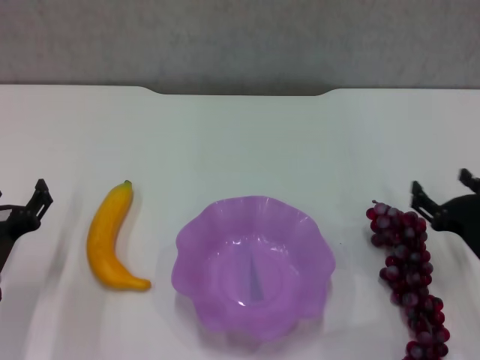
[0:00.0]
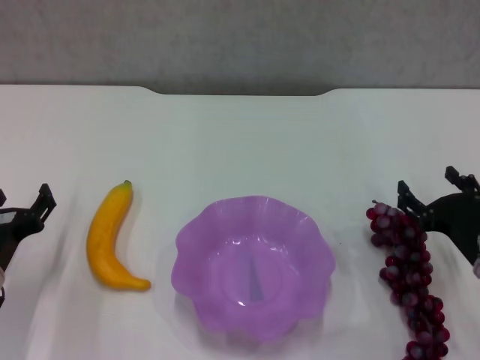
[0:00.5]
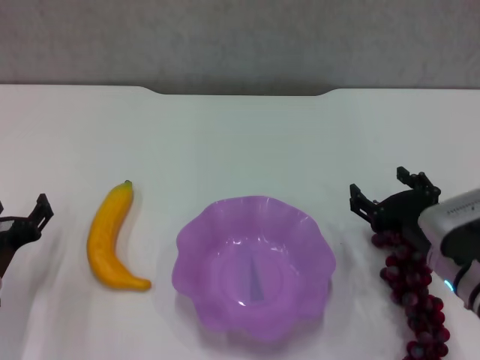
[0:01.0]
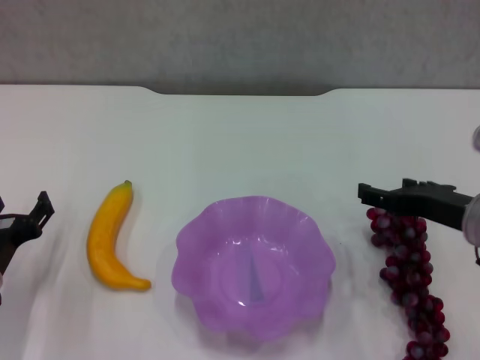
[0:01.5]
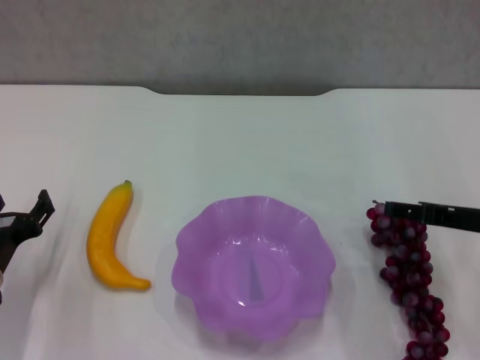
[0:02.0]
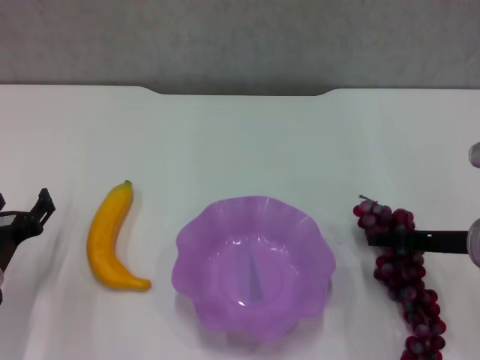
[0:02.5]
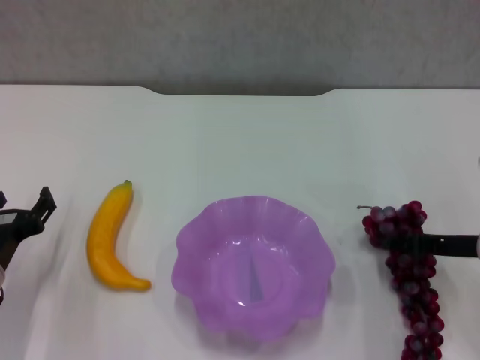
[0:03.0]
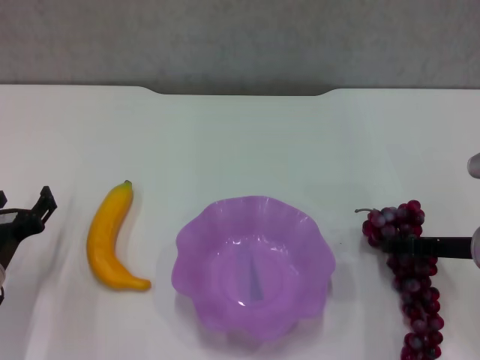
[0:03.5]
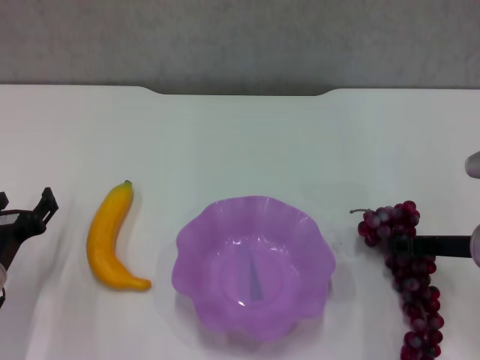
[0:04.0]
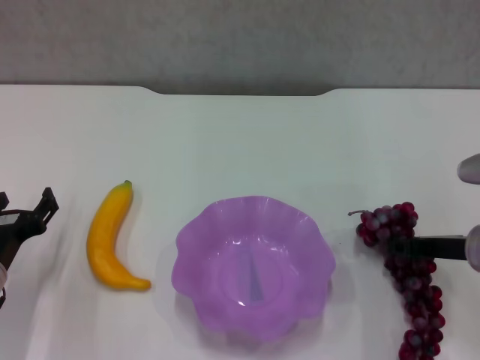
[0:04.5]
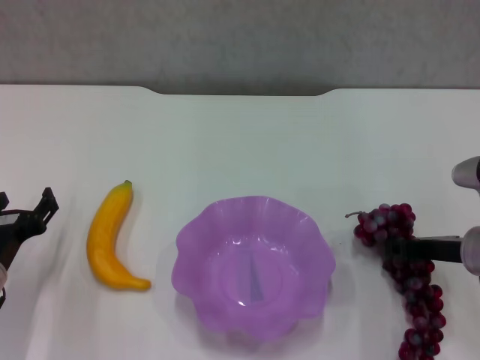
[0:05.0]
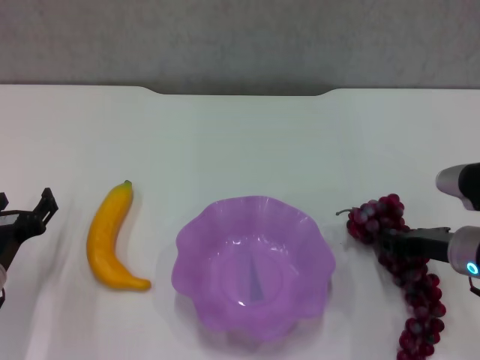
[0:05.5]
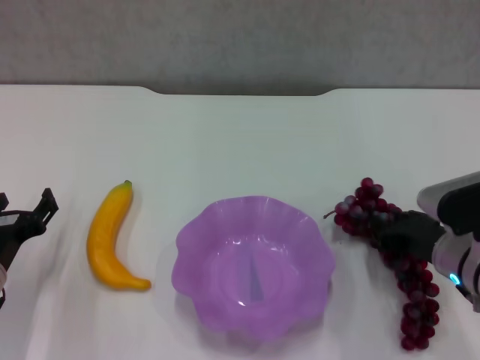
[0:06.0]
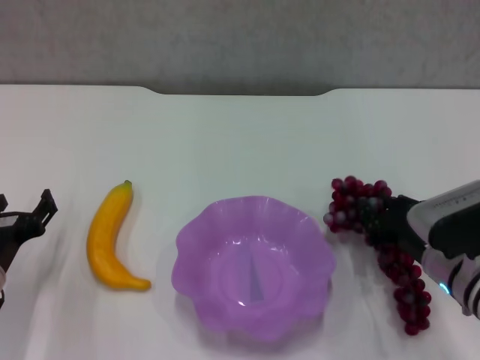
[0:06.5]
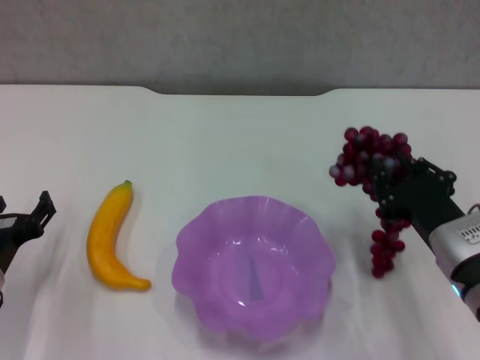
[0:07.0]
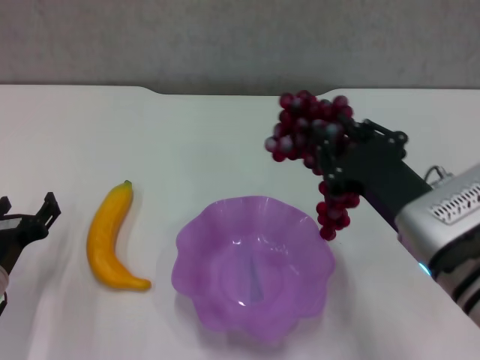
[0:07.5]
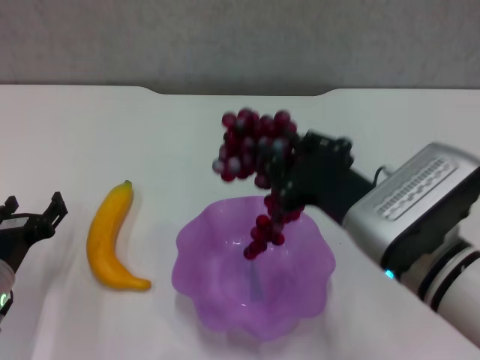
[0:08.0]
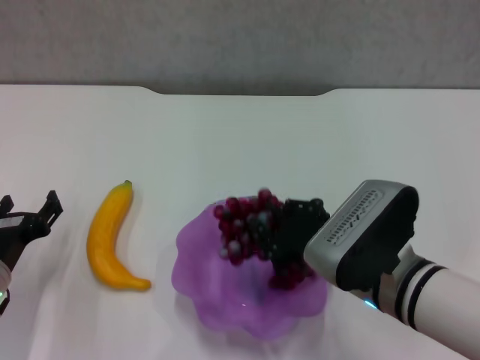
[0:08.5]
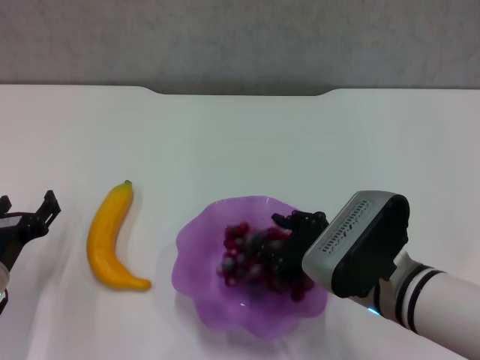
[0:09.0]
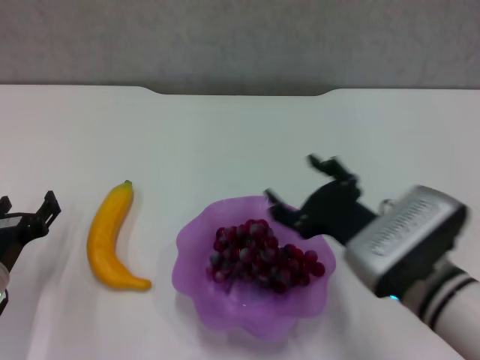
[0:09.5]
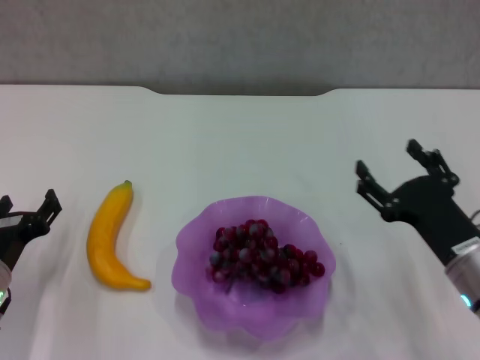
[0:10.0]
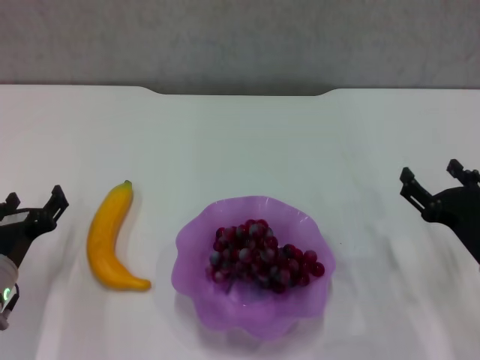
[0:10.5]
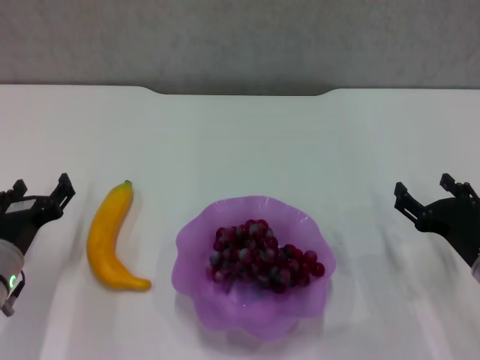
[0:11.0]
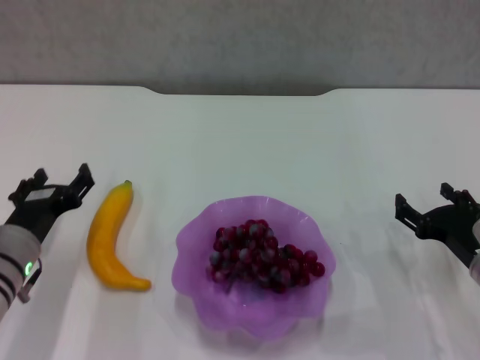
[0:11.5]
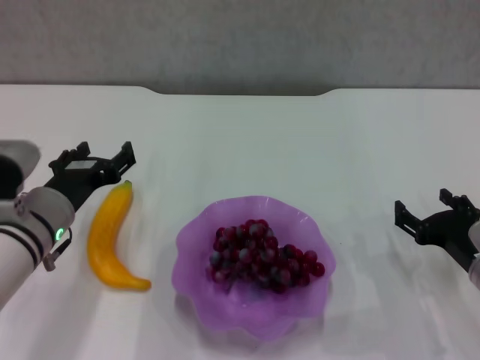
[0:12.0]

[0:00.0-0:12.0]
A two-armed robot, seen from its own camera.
Step, 0:00.0 to 0:03.0: Grasp the grape with right gripper.
Step, 0:03.5 to 0:09.5: Place the grape in the purple plate with right gripper.
0:00.0 to 0:02.0: The right gripper goes roughly 10 cm upward.
0:02.0 to 0:04.0: The right gripper travels downward by roughly 5 cm, and closes up.
0:04.0 to 0:06.0: The right gripper shifts by about 5 cm, and closes up.
0:06.0 to 0:08.0: The right gripper is displaced to the left, upward and backward by some 15 cm.
0:08.0 to 0:10.0: The right gripper moves to the right and downward, some 15 cm, and opens up.
0:10.0 to 0:12.0: The left gripper heads to the right, upward and forward, covering approximately 10 cm. Meanwhile the right gripper changes place by about 5 cm.

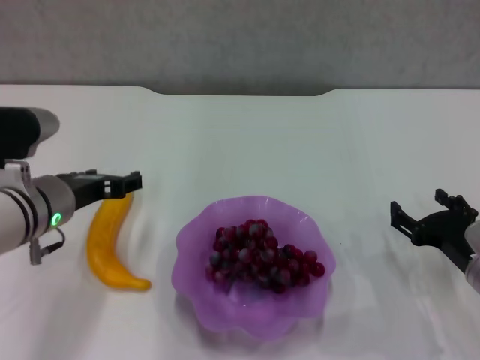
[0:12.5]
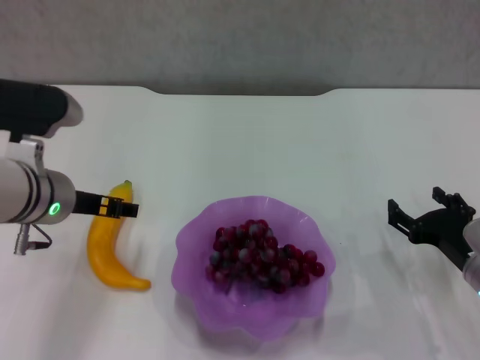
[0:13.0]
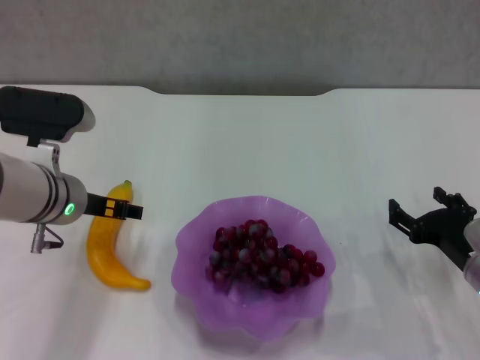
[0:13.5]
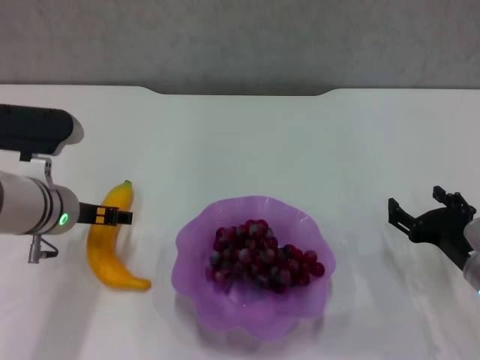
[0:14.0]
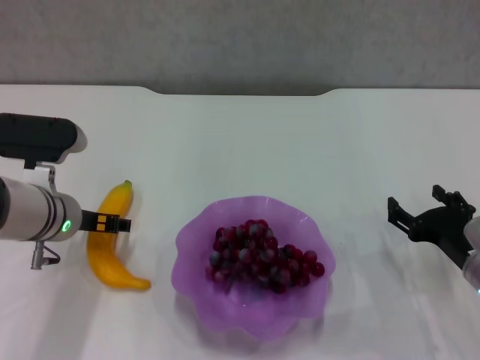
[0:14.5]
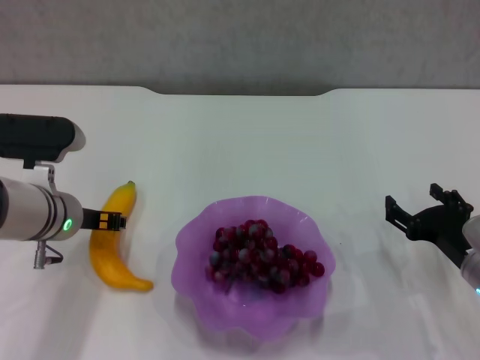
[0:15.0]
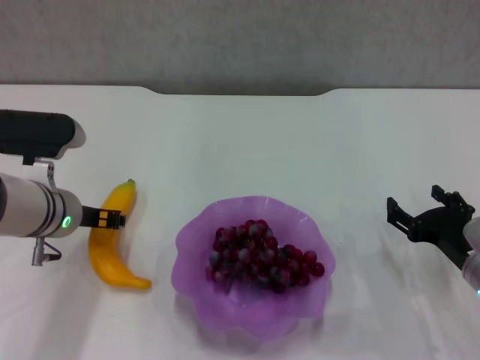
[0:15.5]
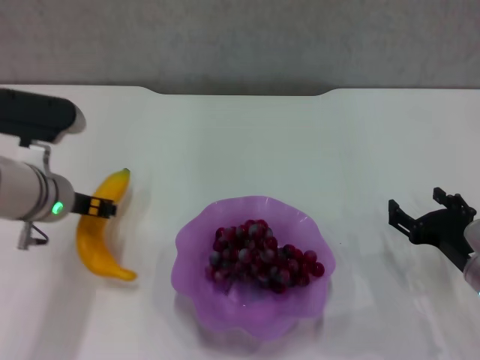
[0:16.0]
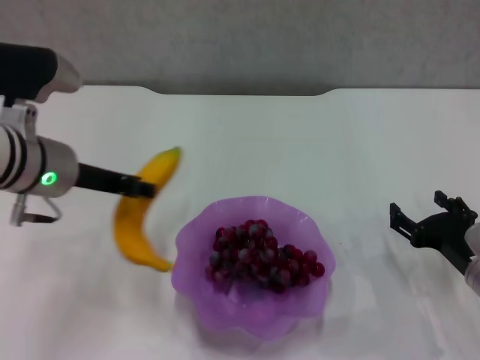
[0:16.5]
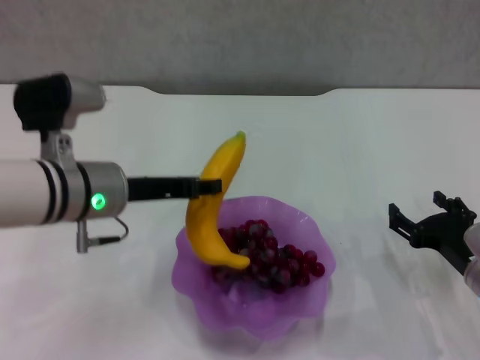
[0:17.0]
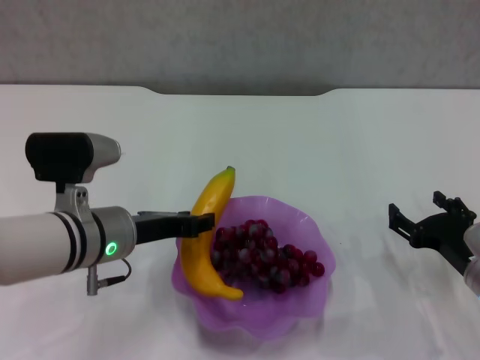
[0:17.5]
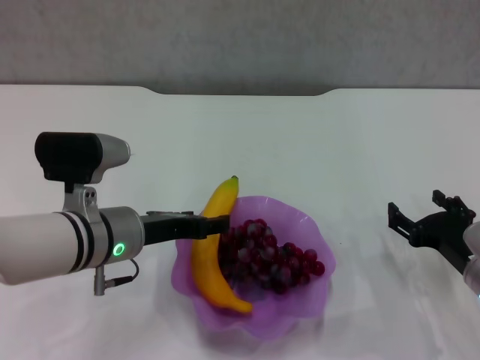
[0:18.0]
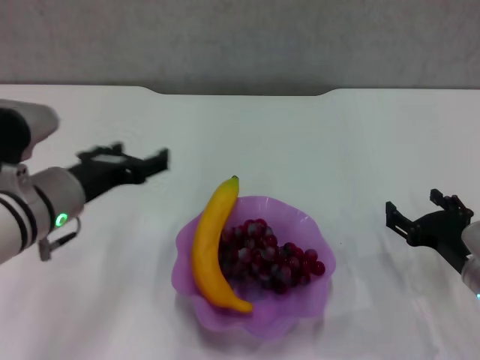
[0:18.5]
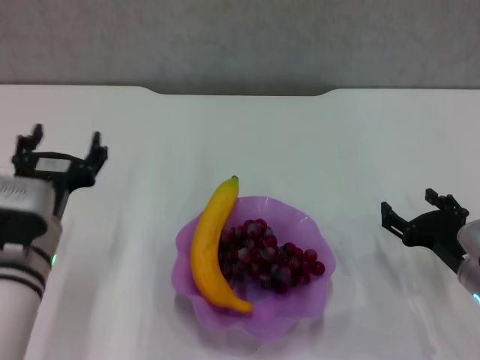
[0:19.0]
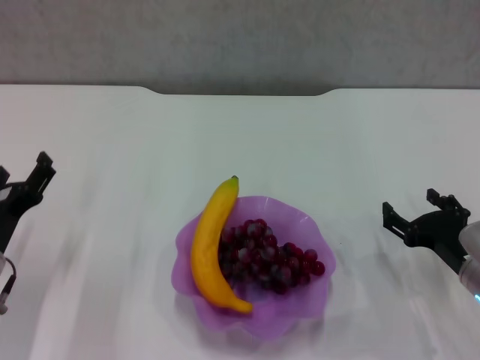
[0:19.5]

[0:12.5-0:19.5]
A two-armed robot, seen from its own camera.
Step, 0:12.5 to 0:14.5: Grasp the banana with left gripper.
Step, 0:15.0 to 0:18.0: Place the banana in the purple plate with left gripper.
0:14.5 to 0:16.0: The left gripper closes up.
0:16.0 to 0:17.5: The left gripper moves to the right and backward, some 5 cm, and moves some 5 cm upward and comes back.
0:17.5 to 0:19.5: The left gripper goes roughly 15 cm to the left and downward, and opens its fingers.

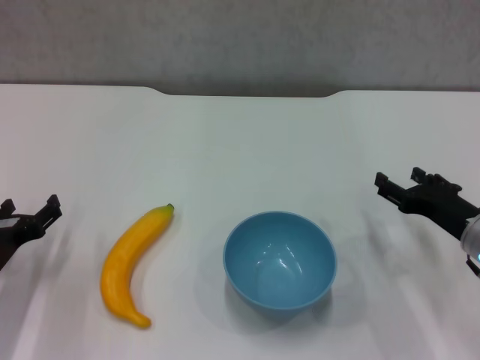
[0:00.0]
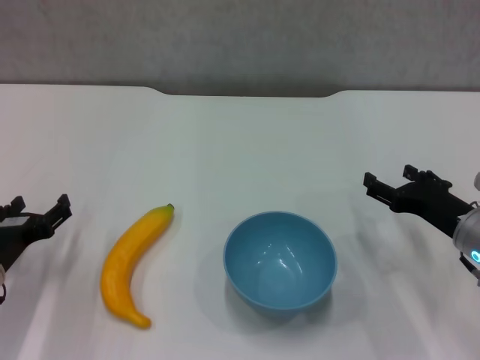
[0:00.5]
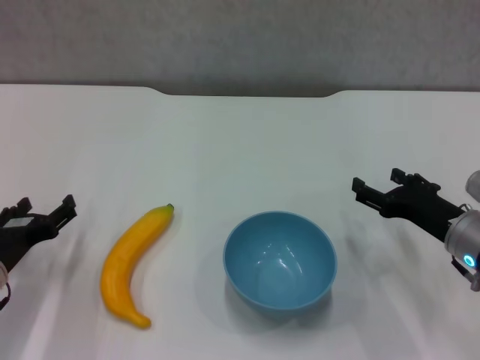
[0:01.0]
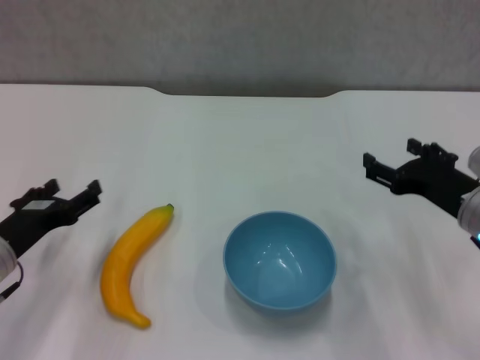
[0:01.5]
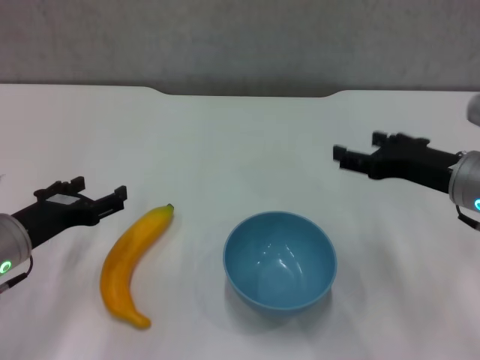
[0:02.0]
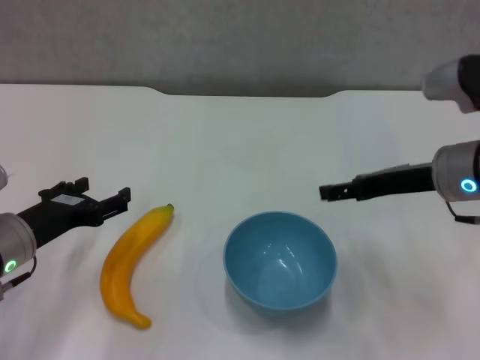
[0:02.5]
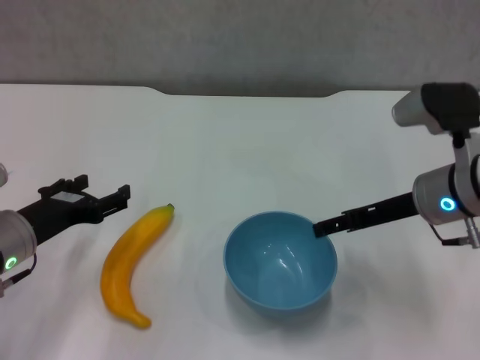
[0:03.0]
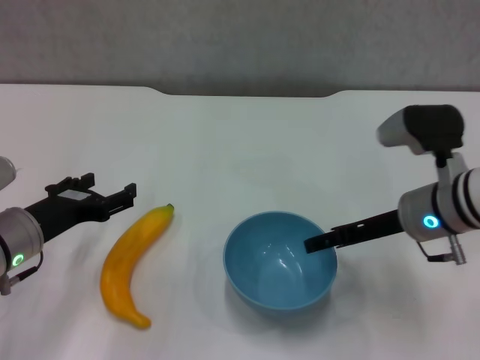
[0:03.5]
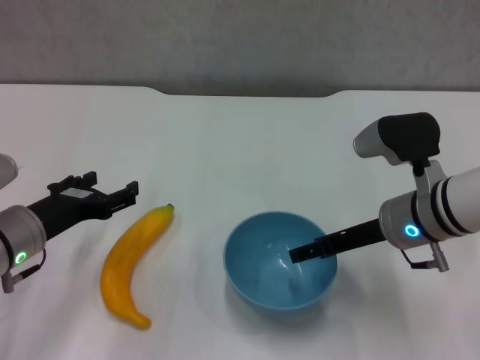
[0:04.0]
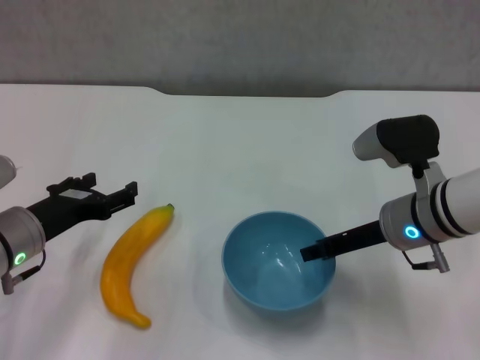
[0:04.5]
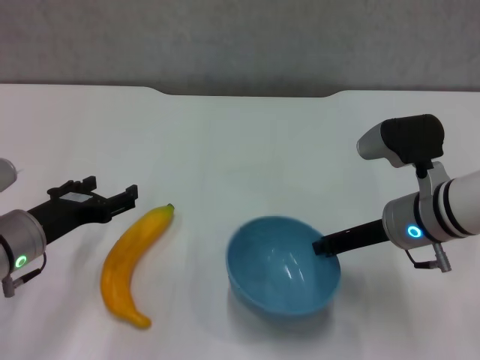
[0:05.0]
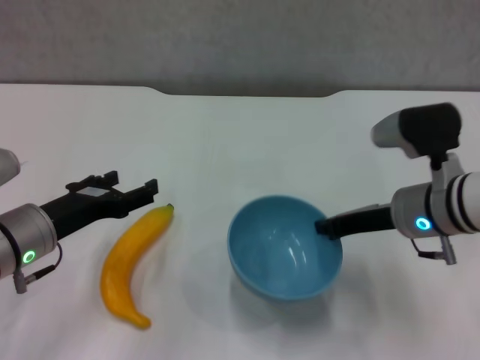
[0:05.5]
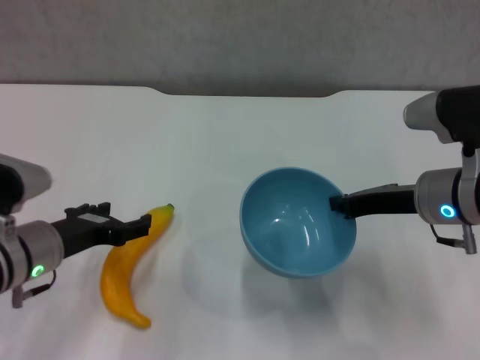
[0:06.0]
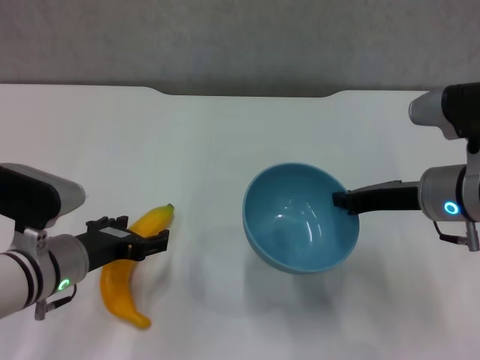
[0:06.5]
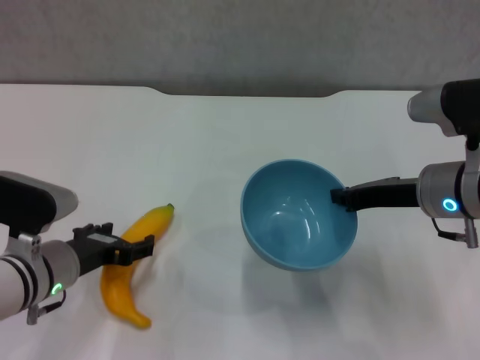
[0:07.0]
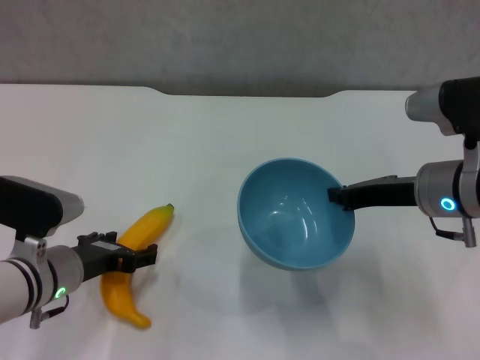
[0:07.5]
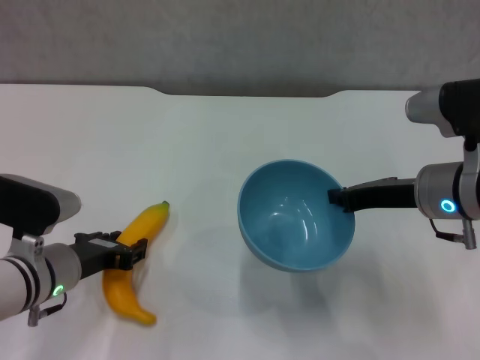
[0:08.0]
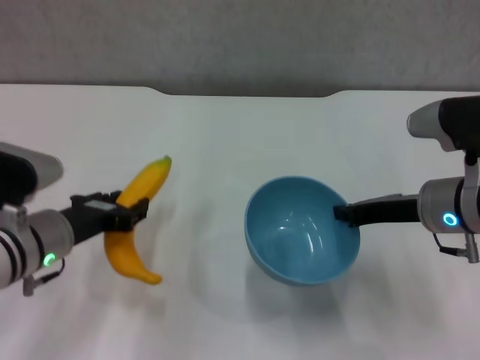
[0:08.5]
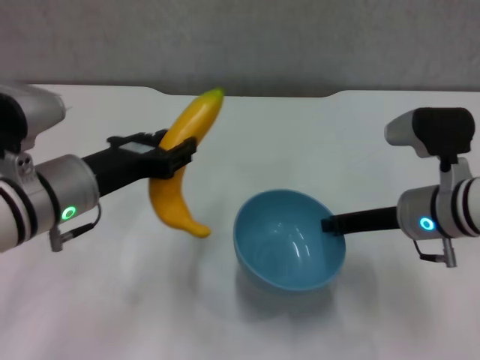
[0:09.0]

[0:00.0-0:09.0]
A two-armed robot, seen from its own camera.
Step, 0:00.0 to 0:05.0: Grasp the blue bowl with right gripper.
Step, 0:05.5 to 0:06.0: Lift the blue bowl with right gripper.
Step, 0:06.5 to 0:08.0: Grasp the banana with left gripper.
0:00.0 to 0:02.0: The left gripper travels upward by about 5 cm. Meanwhile the right gripper goes about 10 cm upward.
0:02.0 to 0:04.5: The right gripper shifts roughly 5 cm to the left.
0:04.5 to 0:07.0: The right gripper closes its fingers.
0:07.0 to 0:09.0: The left gripper moves upward, some 10 cm, and closes its fingers.
